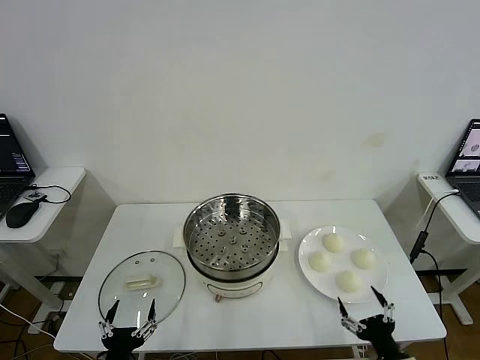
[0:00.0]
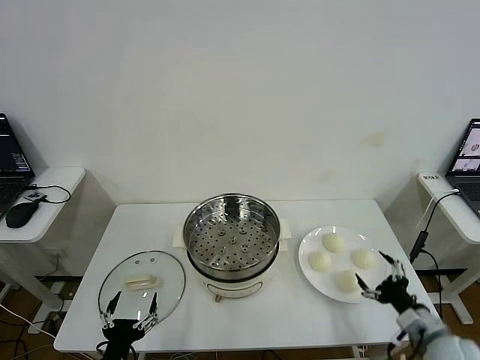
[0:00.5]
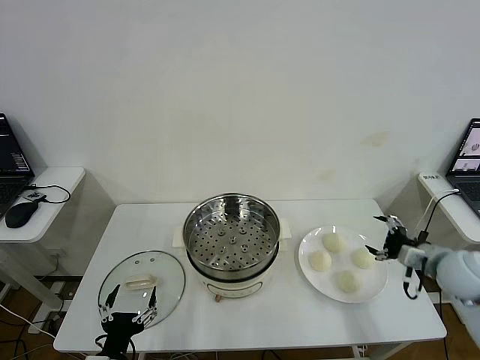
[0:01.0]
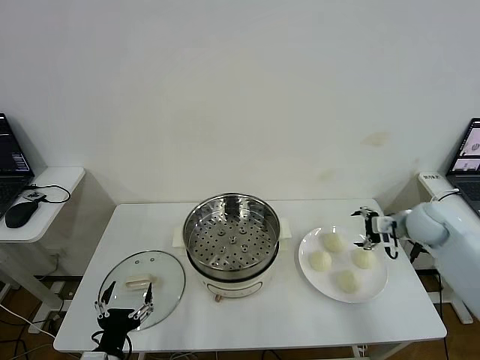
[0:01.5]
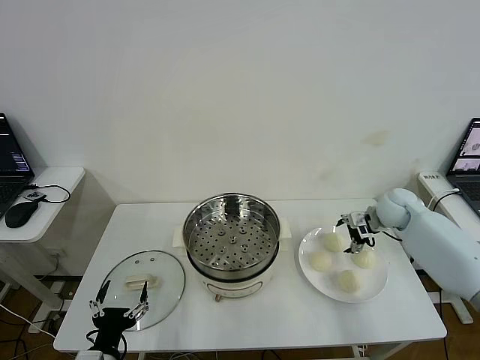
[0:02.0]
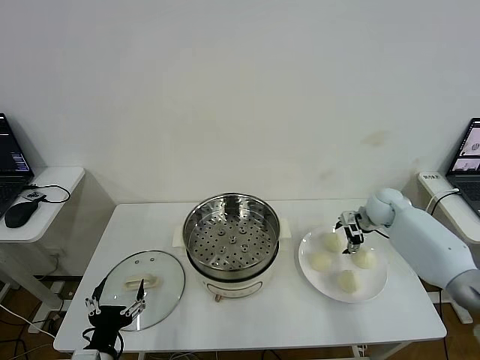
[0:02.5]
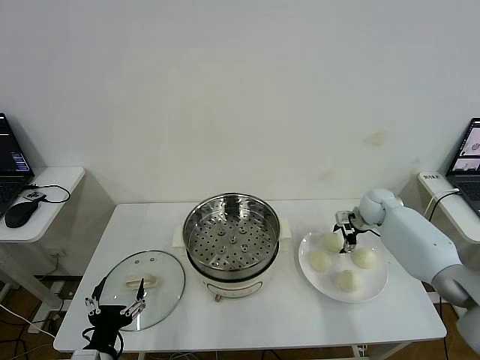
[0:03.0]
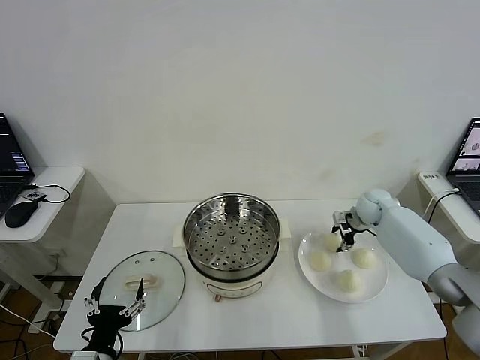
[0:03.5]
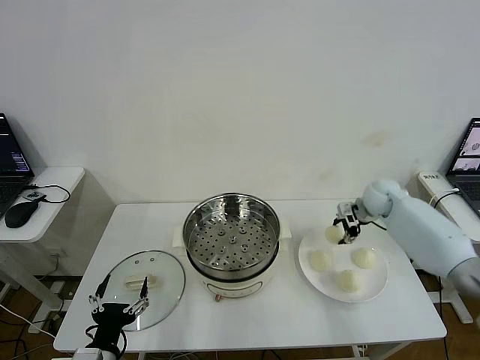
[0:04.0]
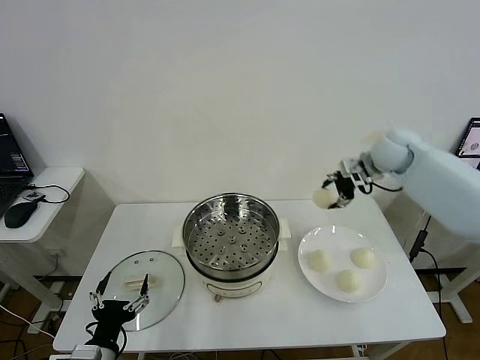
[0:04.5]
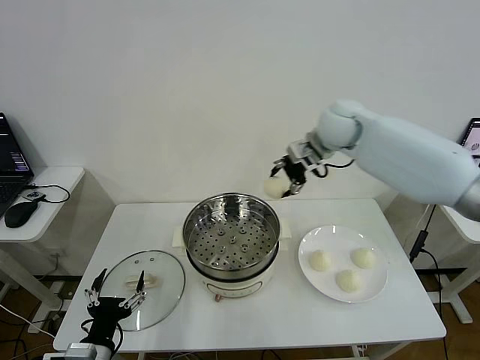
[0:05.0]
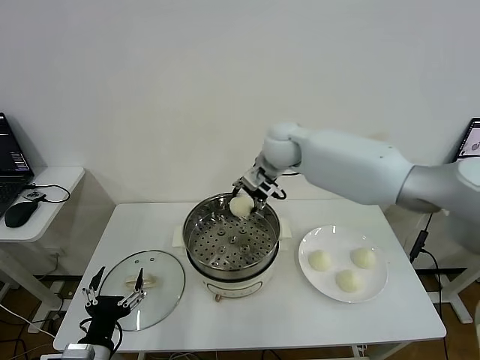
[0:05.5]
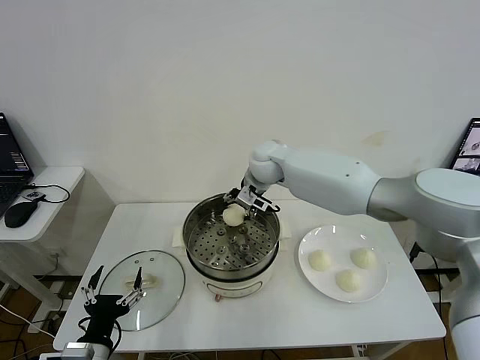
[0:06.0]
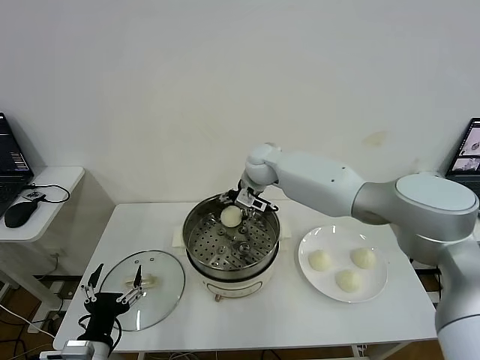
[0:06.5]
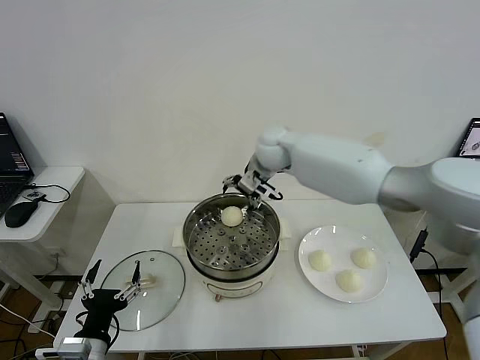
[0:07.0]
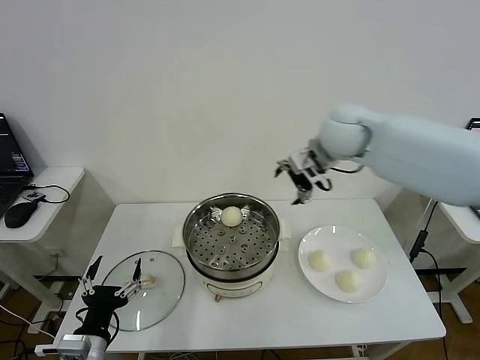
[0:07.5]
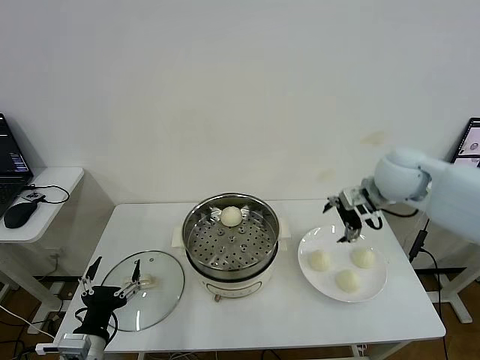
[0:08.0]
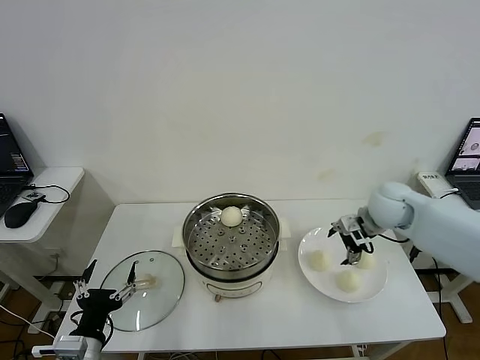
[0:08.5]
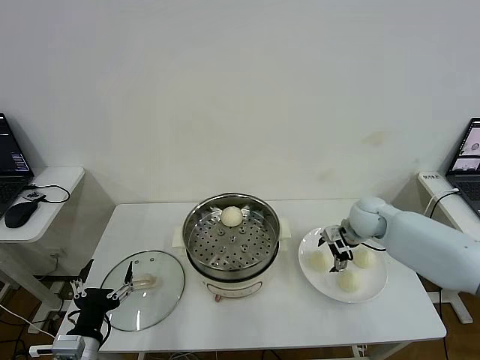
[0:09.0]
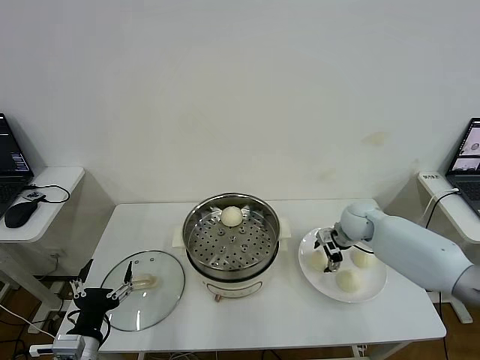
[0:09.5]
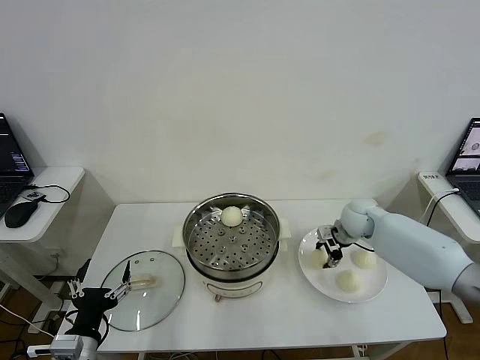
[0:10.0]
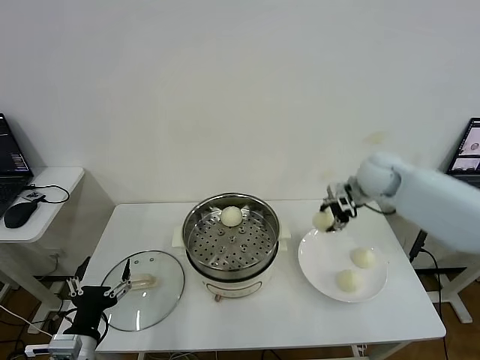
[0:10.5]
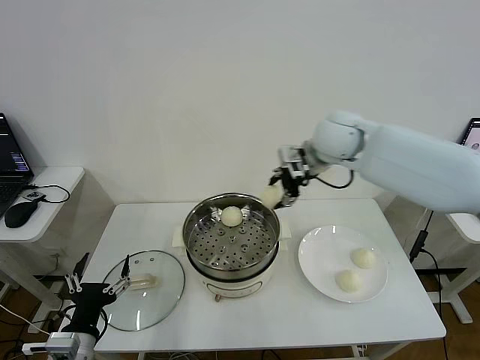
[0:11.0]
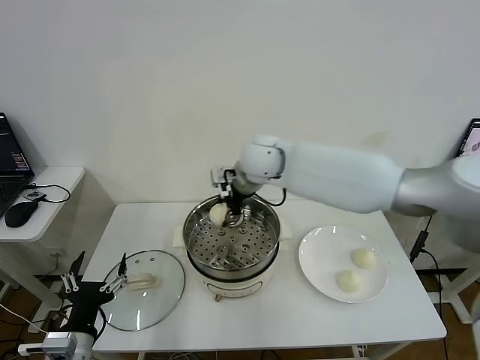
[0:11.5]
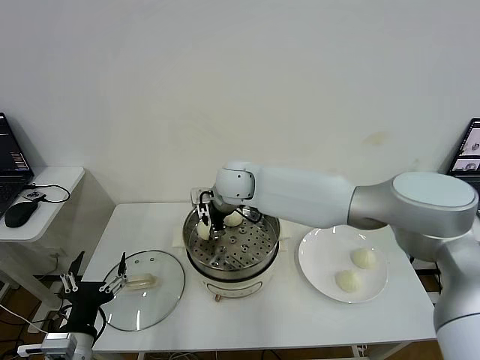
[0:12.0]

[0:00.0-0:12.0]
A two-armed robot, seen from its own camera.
Step, 0:00.0 to 0:03.5: Grasp the baozi in the plate with right gripper.
Step, 0:04.0 to 0:06.5: Place the baozi on the steamer with right gripper.
Step, 0:07.0 to 0:09.5: Grasp the baozi in the plate with right gripper.
0:02.0 to 0:04.0: The right gripper ends up roughly 5 cm from where it was, and closes up.
0:04.0 to 0:06.0: The right gripper travels to the left by about 30 cm.
0:06.0 to 0:08.0: The right gripper goes roughly 30 cm to the right and backward, and opens.
0:08.0 to 0:10.0: The right gripper moves downward, roughly 15 cm, and closes its fingers.
0:10.0 to 0:12.0: The right gripper is displaced to the left by about 35 cm.

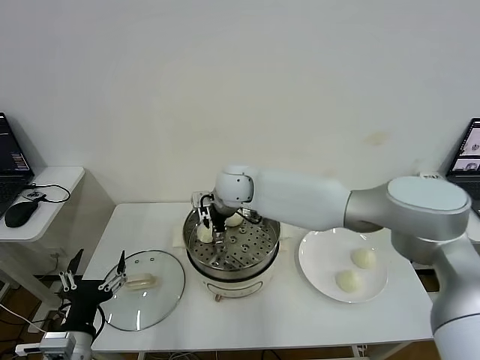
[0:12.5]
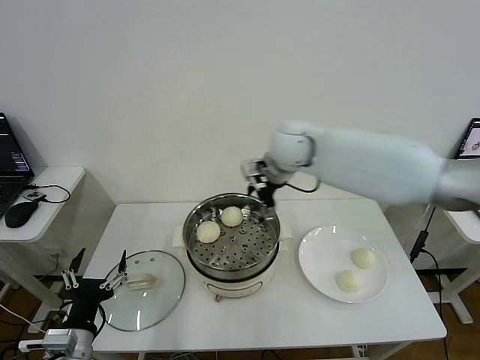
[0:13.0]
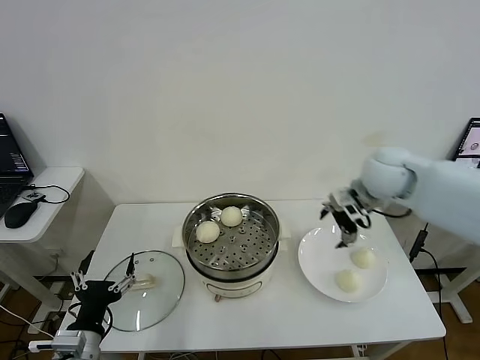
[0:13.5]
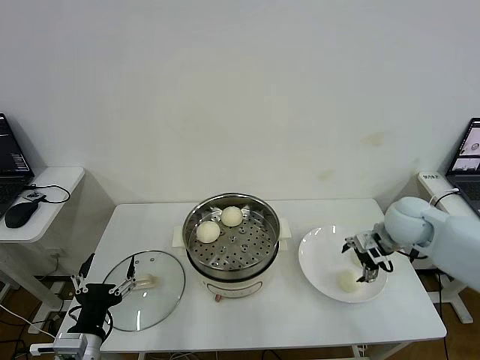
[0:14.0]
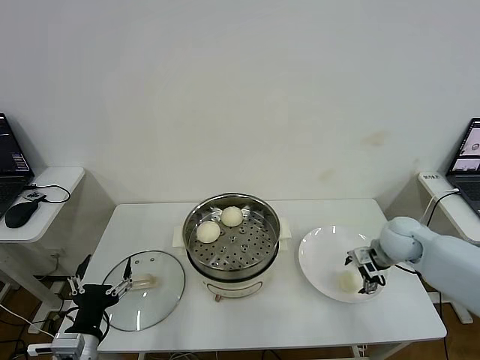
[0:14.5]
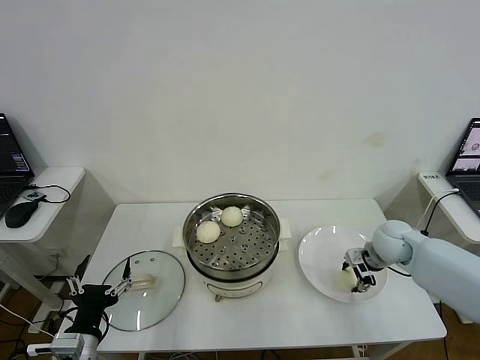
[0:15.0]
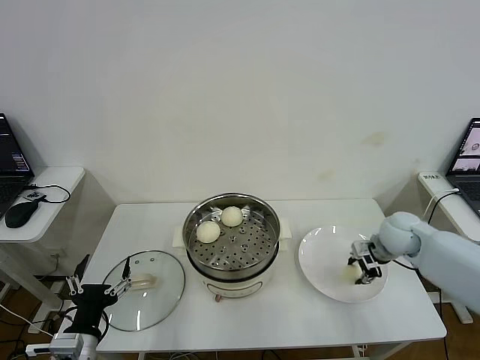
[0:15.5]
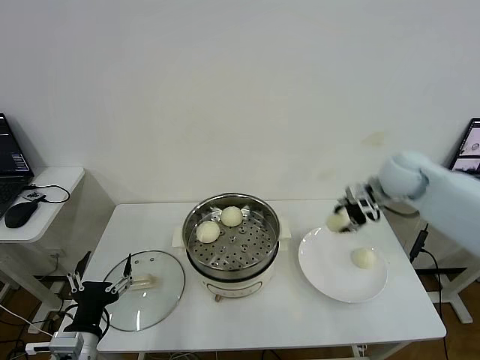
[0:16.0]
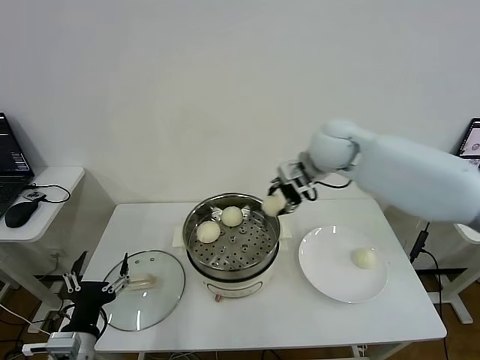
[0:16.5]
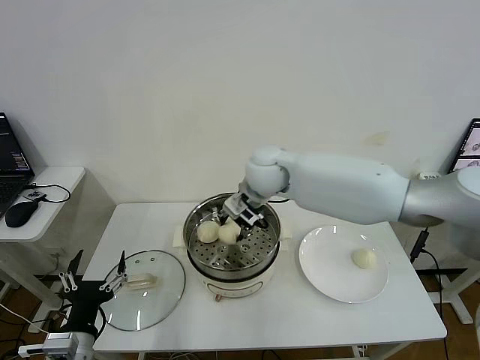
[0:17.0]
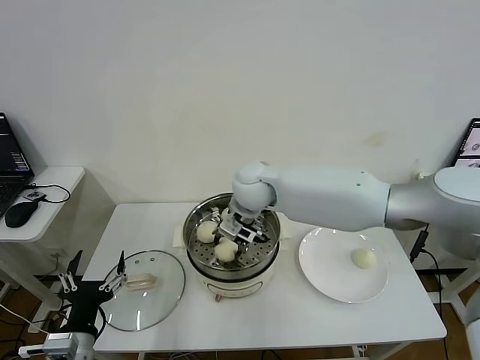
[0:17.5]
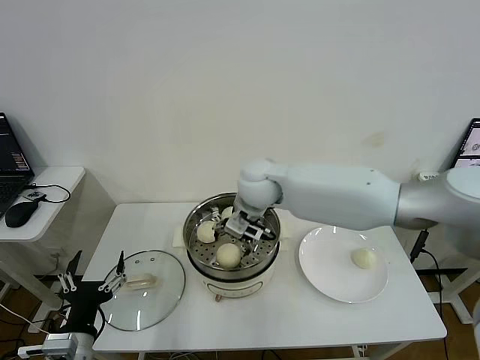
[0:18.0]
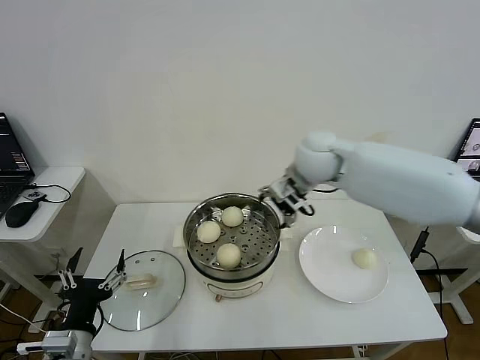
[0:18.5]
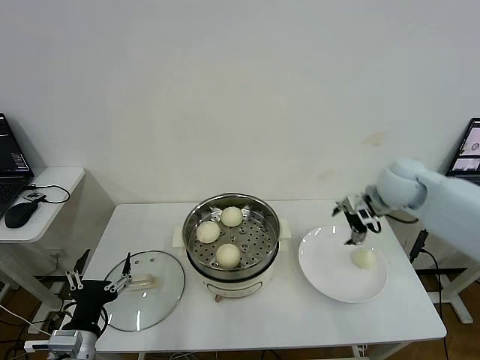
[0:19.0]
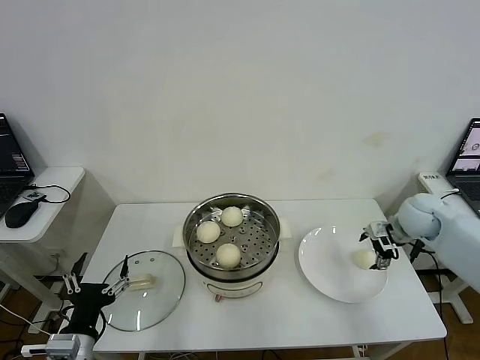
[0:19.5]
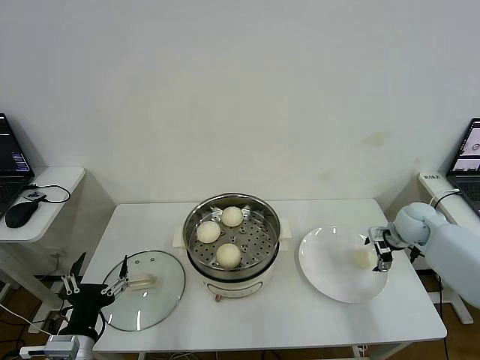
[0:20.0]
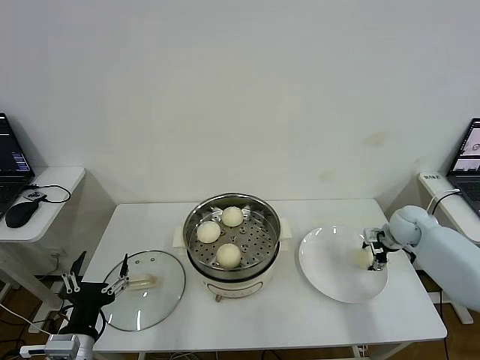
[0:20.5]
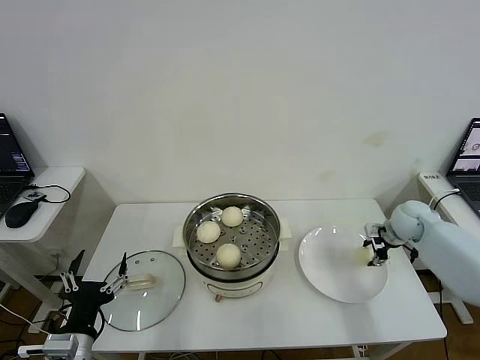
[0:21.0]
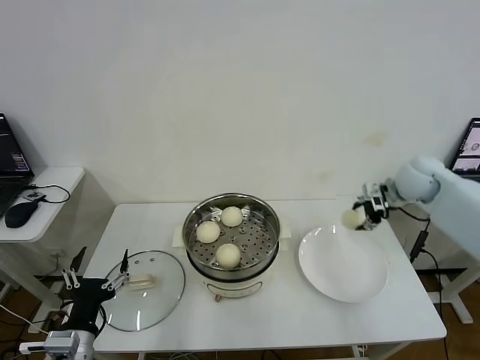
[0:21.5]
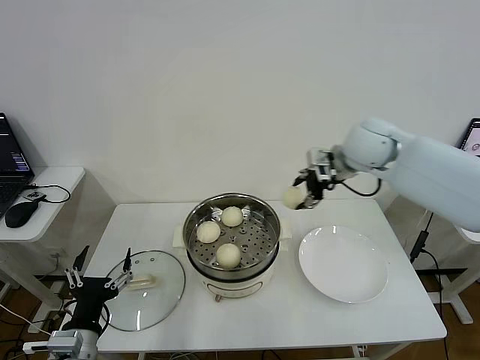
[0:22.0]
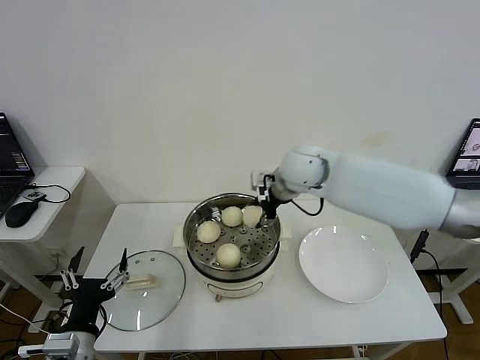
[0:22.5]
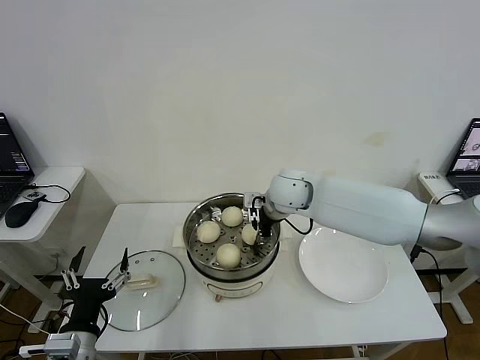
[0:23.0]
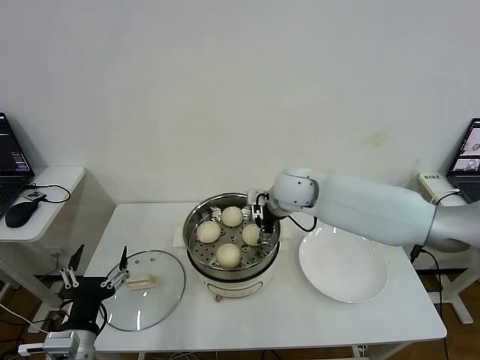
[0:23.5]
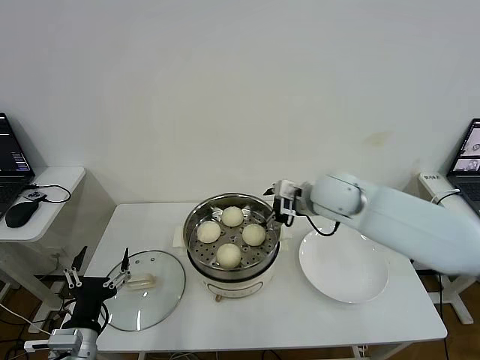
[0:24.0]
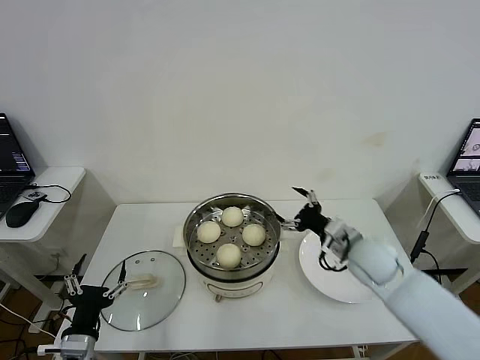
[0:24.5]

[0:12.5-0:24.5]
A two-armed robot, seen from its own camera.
Step, 0:13.0 to 0:15.0: Grasp the baozi in the plate with right gripper.
Step, 0:15.5 to 0:18.0: Place the baozi on the steamer with right gripper.
Step, 0:18.5 to 0:20.5: Grasp the baozi in the plate with right gripper.
Step, 0:21.0 to 0:23.5: Place the baozi on the steamer with right gripper.
0:12.5 to 0:14.5: The right gripper is displaced to the right by some 40 cm.
0:14.5 to 0:16.5: The right gripper is displaced to the left and upward by roughly 30 cm, and closes its fingers.
0:16.5 to 0:18.5: The right gripper goes to the left and returns, approximately 15 cm each way, and opens.
0:18.5 to 0:20.5: The right gripper shifts some 35 cm to the right and downward, and closes its fingers.
0:20.5 to 0:22.5: The right gripper is displaced to the left and upward by about 35 cm.
0:22.5 to 0:24.5: The right gripper shifts some 25 cm to the right, downward and backward, and opens. Meanwhile the left gripper changes place by roughly 5 cm.

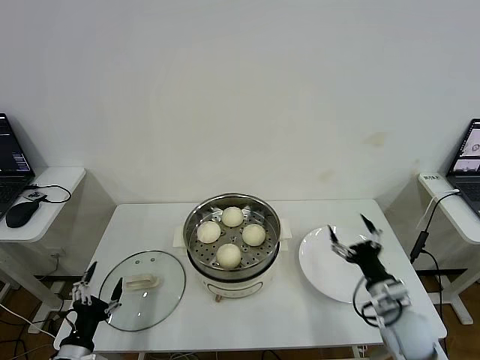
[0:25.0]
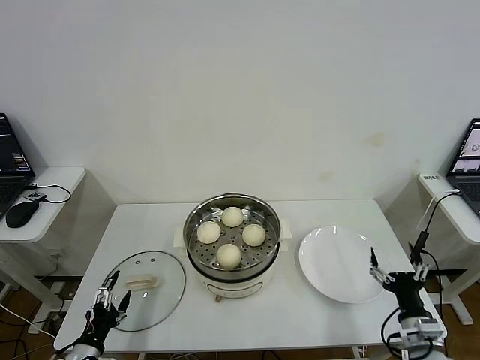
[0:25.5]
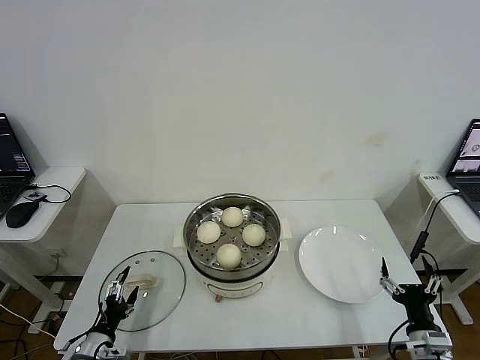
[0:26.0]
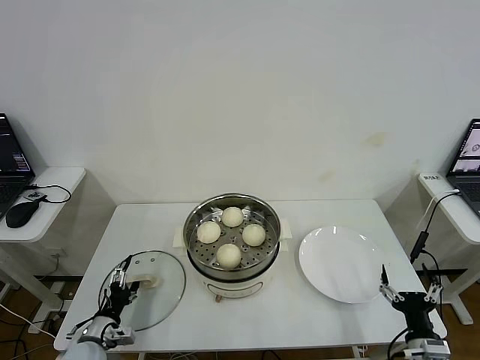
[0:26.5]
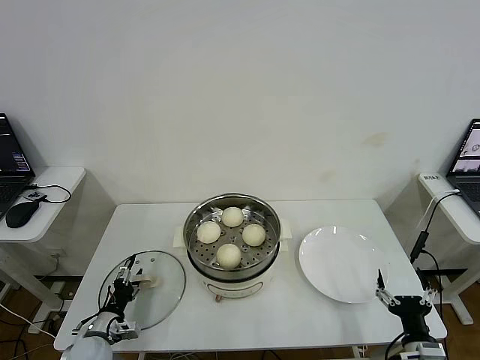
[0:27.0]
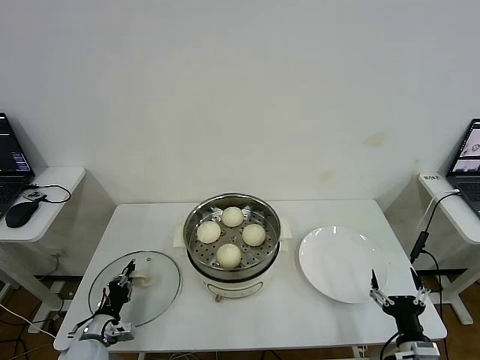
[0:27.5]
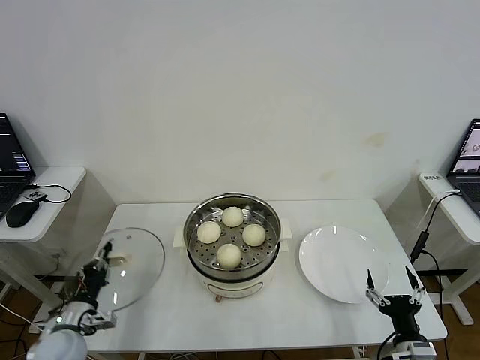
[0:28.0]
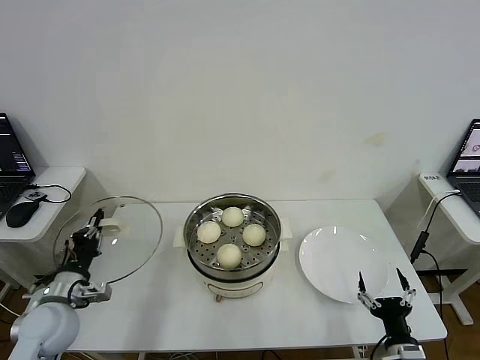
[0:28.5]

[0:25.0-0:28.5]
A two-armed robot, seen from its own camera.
Step, 0:25.0 to 0:27.5: Grasp the pot lid with left gripper.
0:25.0 to 0:27.0: The left gripper is displaced forward and downward by roughly 10 cm. The right gripper travels backward by some 10 cm.
0:27.0 to 0:28.5: The left gripper is displaced upward by approximately 15 cm, and closes up.
